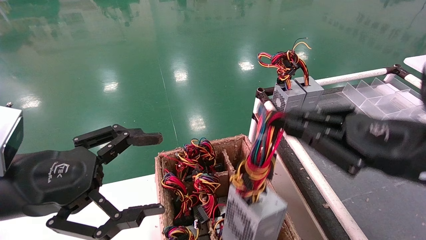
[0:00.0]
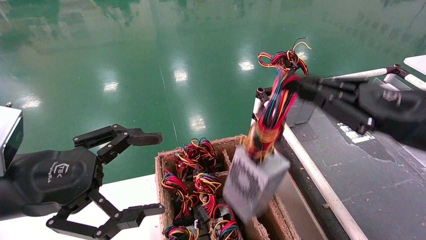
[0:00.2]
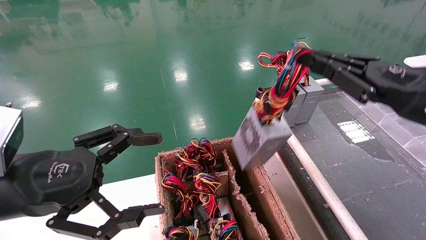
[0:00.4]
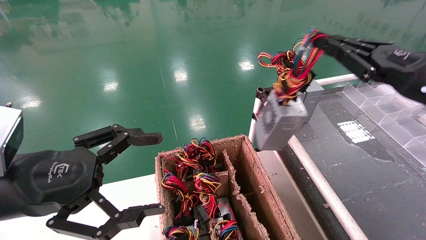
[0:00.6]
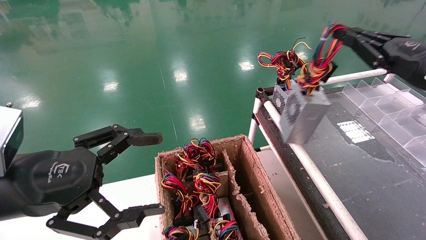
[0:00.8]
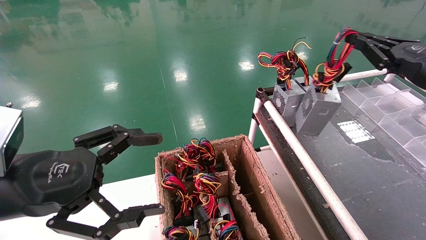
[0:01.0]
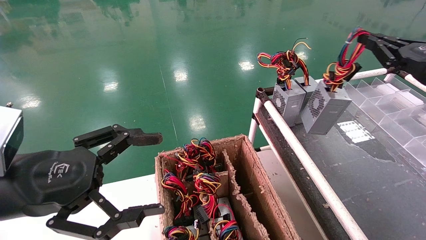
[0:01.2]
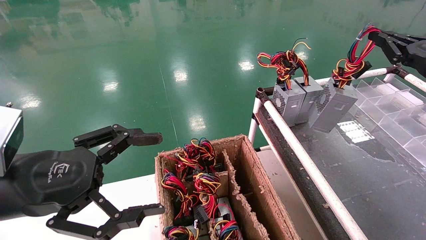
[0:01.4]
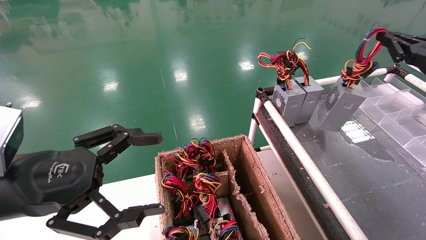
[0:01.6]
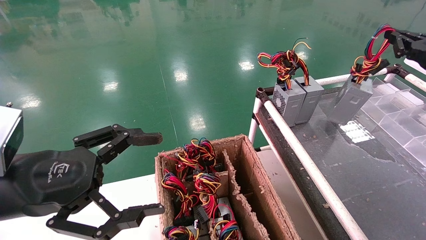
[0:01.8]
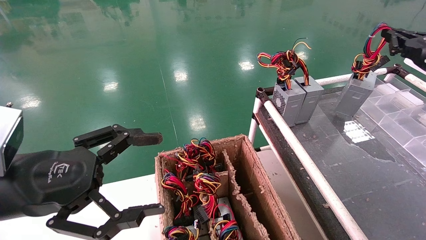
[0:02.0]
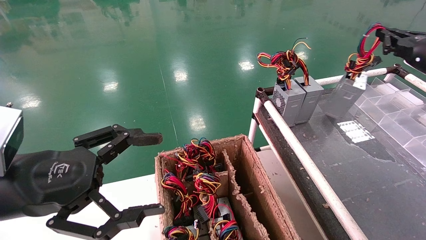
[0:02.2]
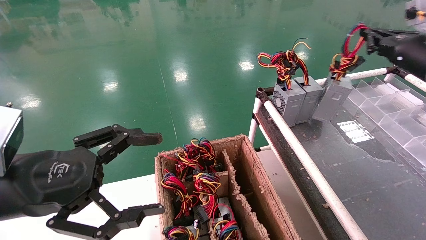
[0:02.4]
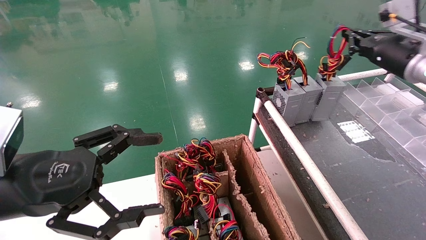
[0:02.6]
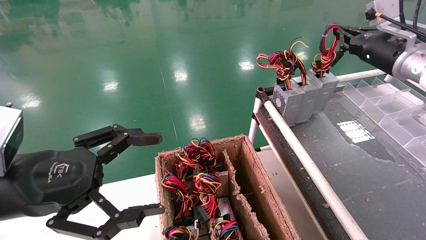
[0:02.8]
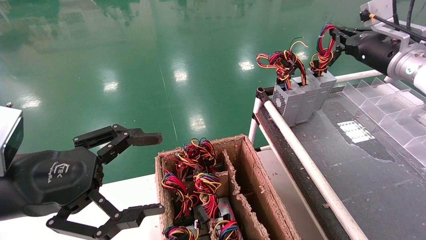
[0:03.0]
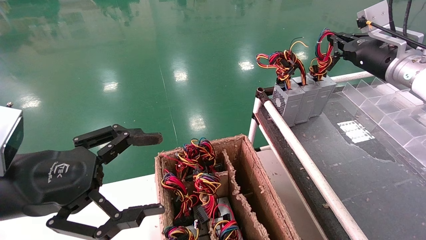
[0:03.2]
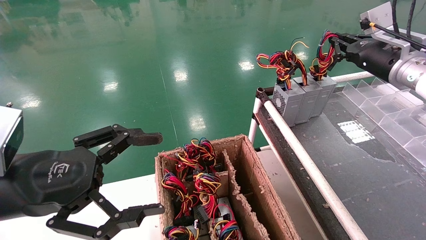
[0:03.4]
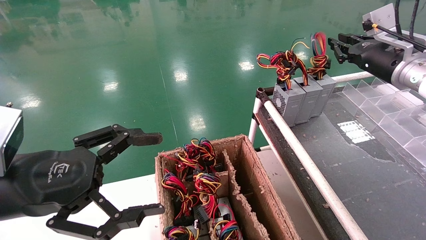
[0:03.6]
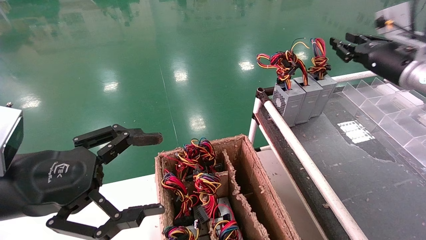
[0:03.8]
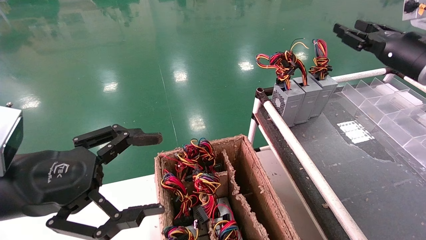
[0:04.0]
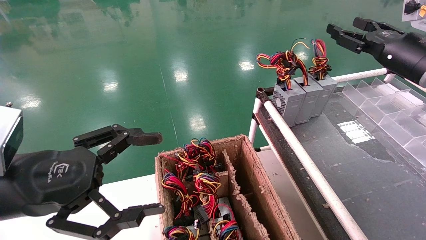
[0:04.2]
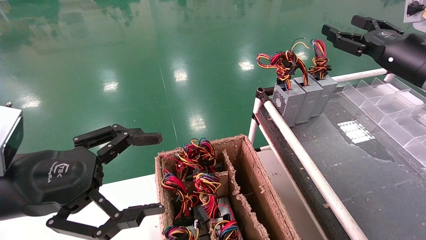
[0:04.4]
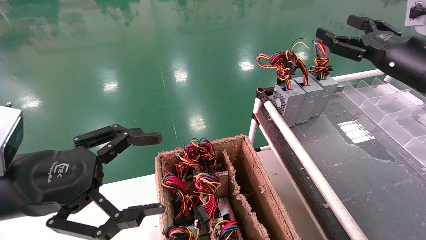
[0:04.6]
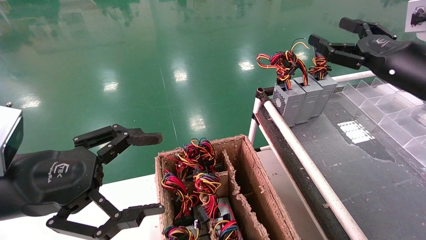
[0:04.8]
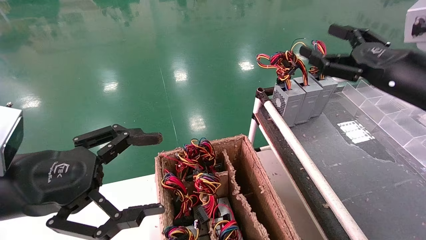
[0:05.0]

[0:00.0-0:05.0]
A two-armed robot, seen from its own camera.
Step, 0:00.0 to 0:03.4: Place the power supply on the operating table.
0:00.0 to 0:01.6: The right gripper goes some 25 cm to the right, forward and upward.
0:01.6 to 0:03.4: The right gripper goes about 10 cm to the left and forward.
0:03.4 to 0:05.0: The right gripper goes approximately 10 cm backward, and opens up.
